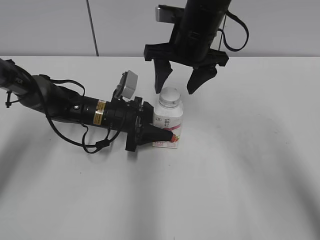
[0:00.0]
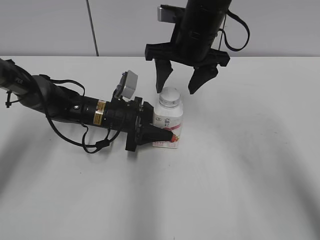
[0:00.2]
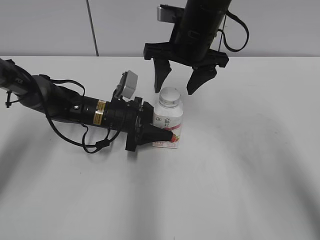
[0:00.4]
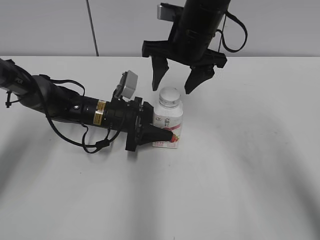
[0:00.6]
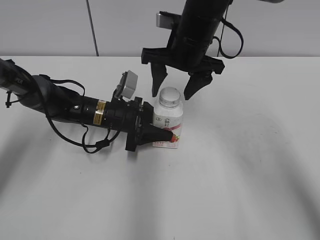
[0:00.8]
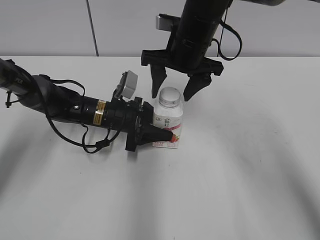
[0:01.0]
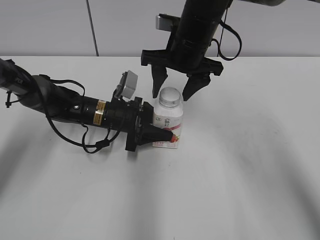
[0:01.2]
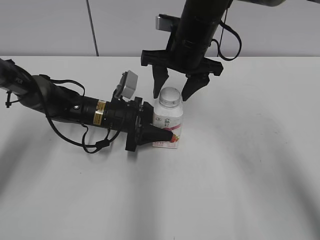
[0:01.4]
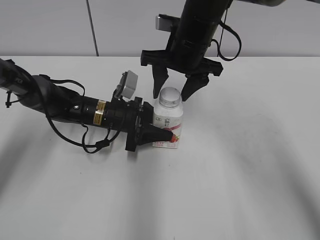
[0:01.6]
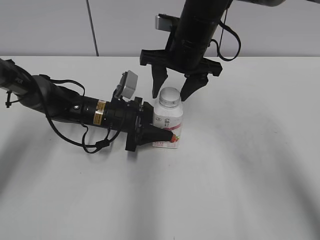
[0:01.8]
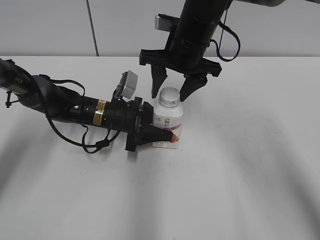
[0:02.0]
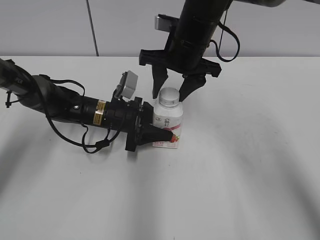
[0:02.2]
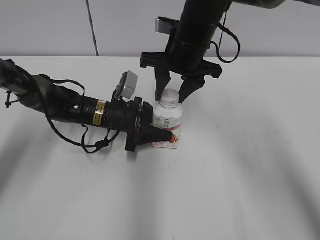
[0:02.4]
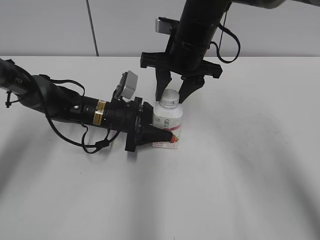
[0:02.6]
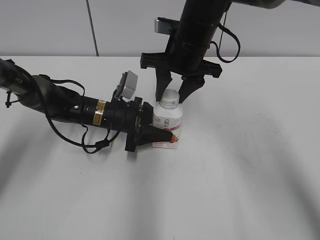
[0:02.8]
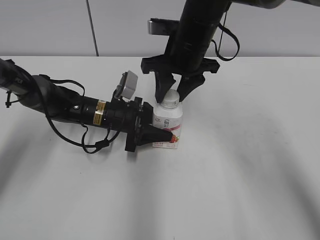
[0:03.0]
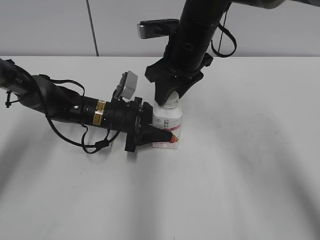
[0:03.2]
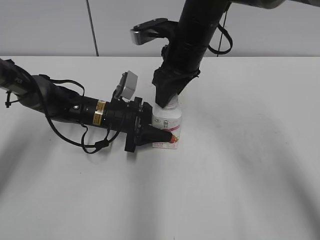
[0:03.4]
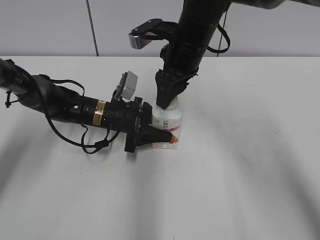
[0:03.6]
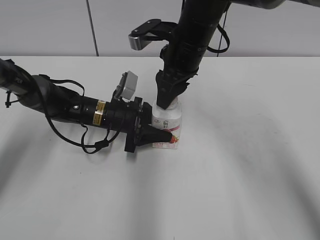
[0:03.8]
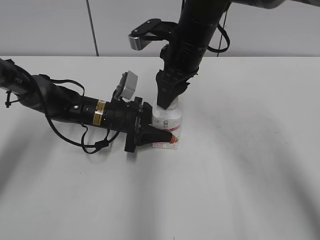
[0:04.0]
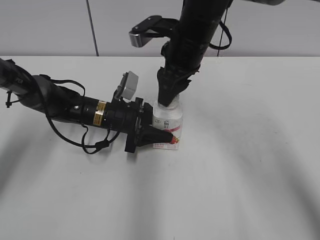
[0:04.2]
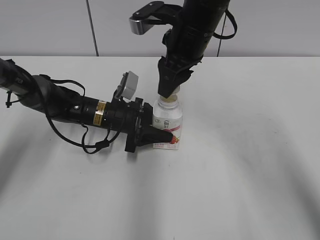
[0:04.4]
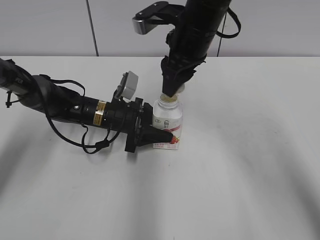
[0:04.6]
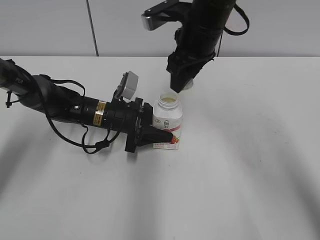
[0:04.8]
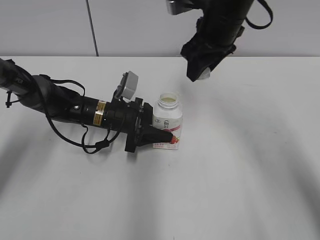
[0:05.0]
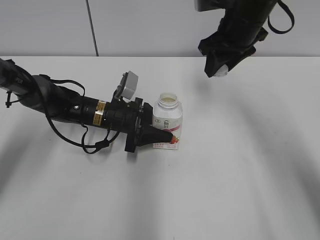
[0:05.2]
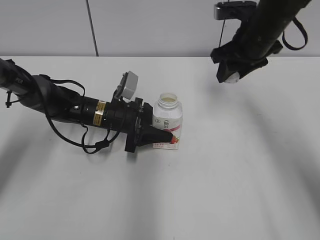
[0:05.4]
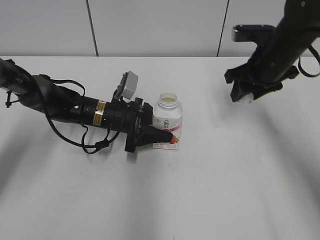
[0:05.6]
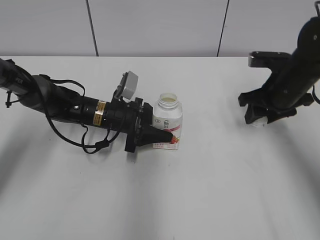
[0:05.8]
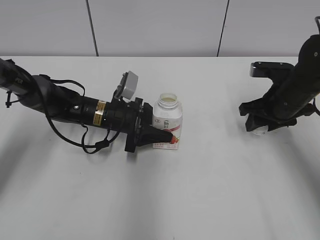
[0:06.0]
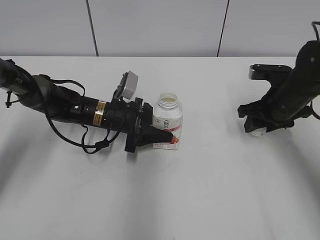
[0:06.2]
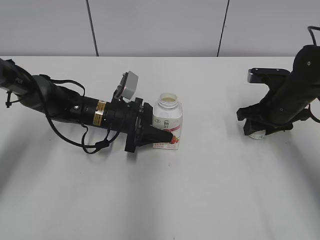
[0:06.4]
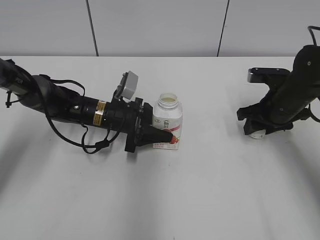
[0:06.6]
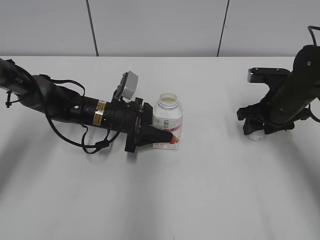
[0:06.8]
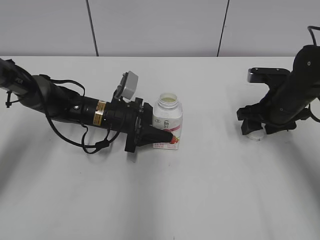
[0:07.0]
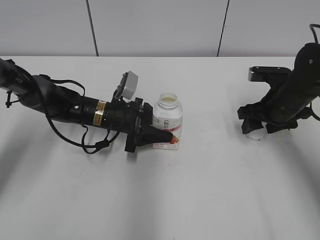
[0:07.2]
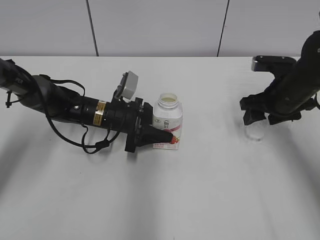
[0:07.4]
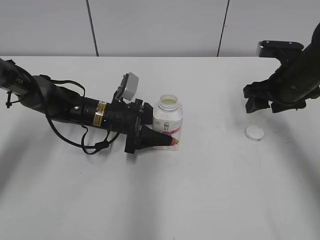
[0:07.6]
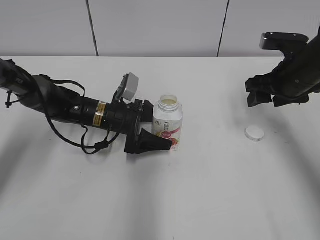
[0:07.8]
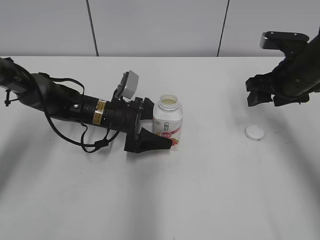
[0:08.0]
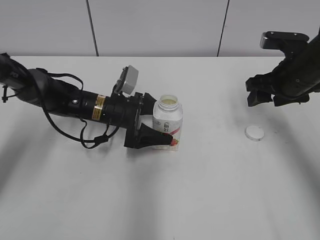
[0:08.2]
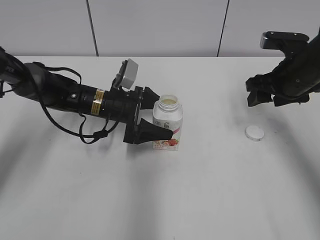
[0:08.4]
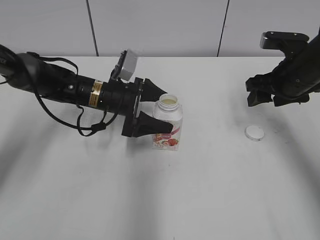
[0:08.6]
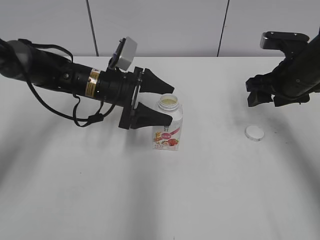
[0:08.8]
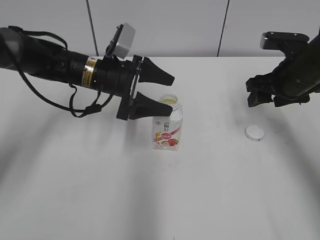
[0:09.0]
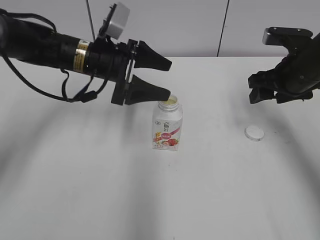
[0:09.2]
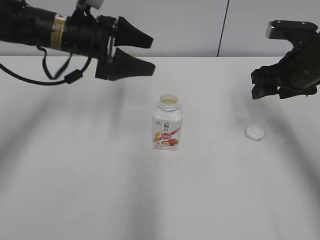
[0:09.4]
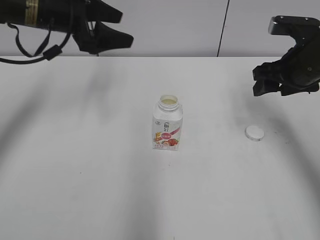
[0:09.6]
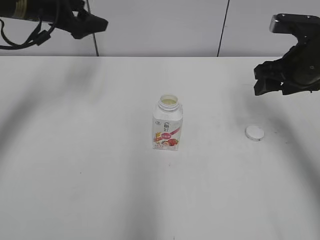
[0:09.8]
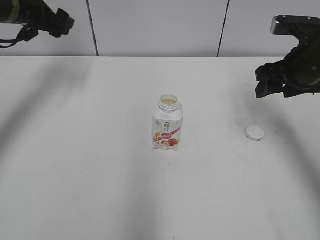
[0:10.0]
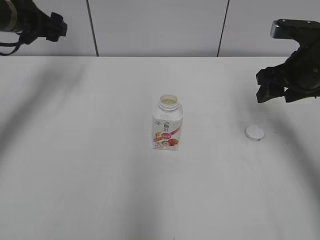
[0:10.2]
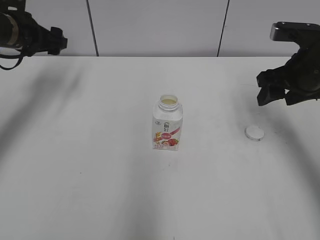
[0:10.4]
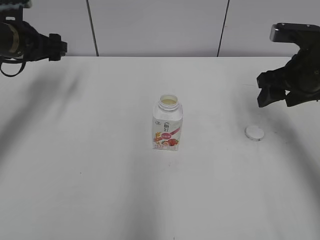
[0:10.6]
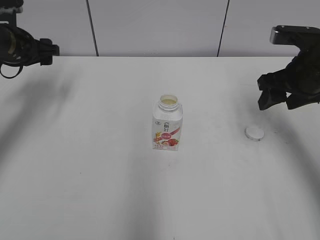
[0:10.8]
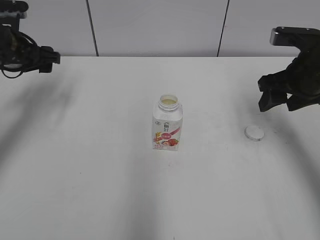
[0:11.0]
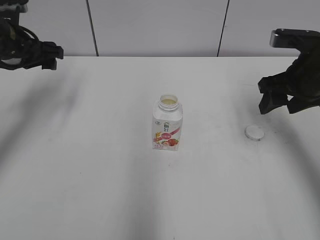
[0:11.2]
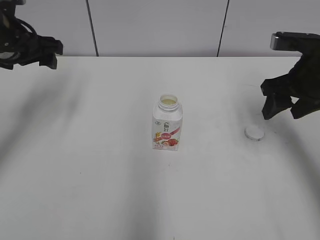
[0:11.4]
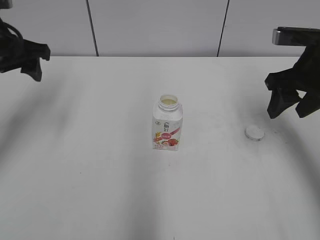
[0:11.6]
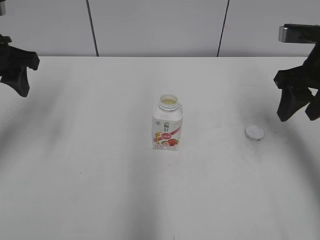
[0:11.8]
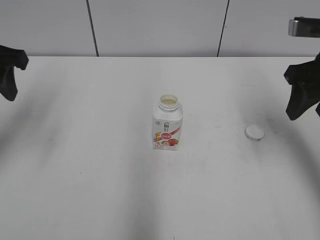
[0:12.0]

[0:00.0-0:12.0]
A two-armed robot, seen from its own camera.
Step, 0:04.4 to 0:07.2: Place the bottle cap on the right.
0:00.0 to 0:01.6: There are only small adjustments of the grippers.
0:01.6 to 0:03.0: The right gripper closes up.
0:04.4 to 0:06.0: The right gripper travels to the right and downward by about 20 cm.
0:06.0 to 0:07.6: The right gripper opens up.
0:07.6 to 0:09.0: The left gripper is displaced upward by roughly 10 cm, and opens its fingers.
0:09.0 to 0:10.4: The left gripper is displaced to the left and upward by approximately 20 cm.
0:10.4 to 0:12.0: The right gripper moves upward, about 5 cm. The left gripper travels backward and upward by about 15 cm, and closes its fingers.

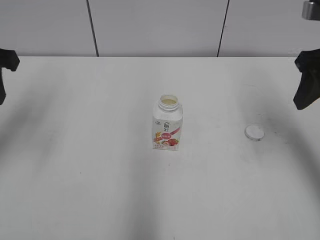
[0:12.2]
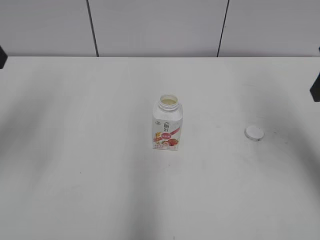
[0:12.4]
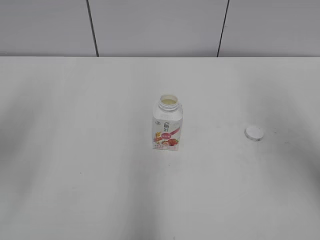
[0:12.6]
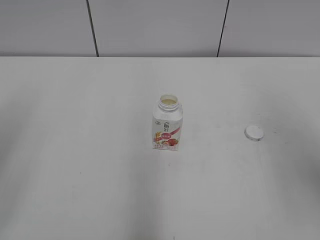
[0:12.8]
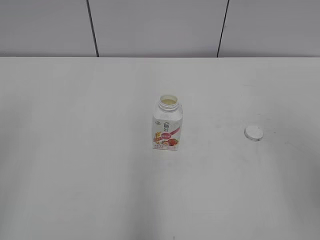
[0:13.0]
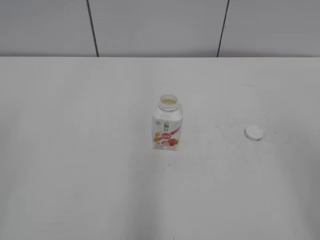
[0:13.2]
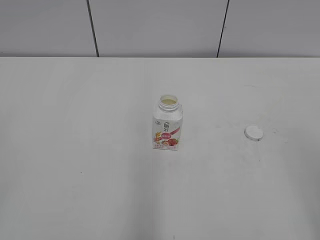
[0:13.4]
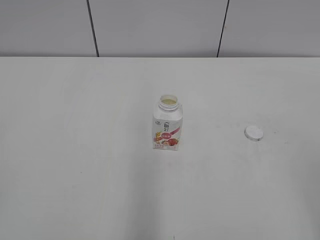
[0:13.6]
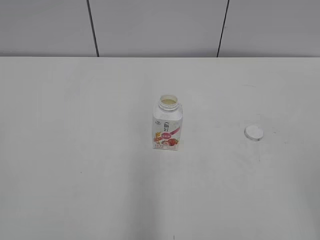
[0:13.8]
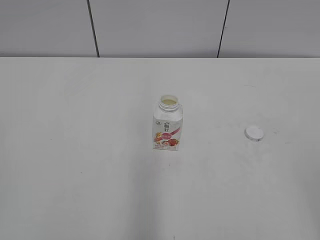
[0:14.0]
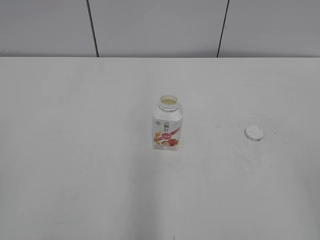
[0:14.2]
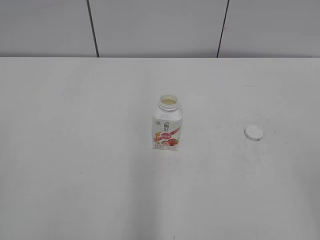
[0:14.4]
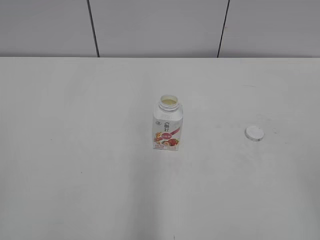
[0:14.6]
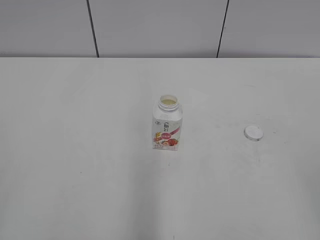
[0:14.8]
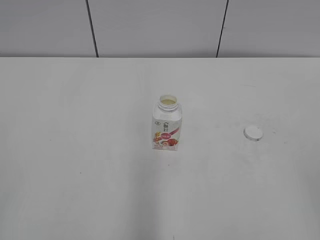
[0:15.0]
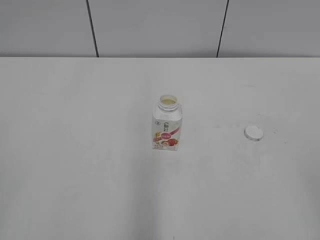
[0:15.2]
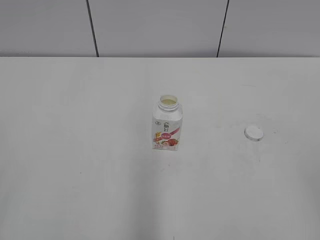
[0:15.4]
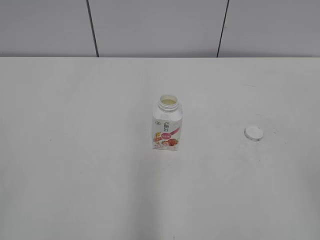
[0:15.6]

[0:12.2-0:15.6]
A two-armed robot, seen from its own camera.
0:12.2 to 0:13.8: Both grippers move backward, roughly 30 cm. The left gripper closes up.
